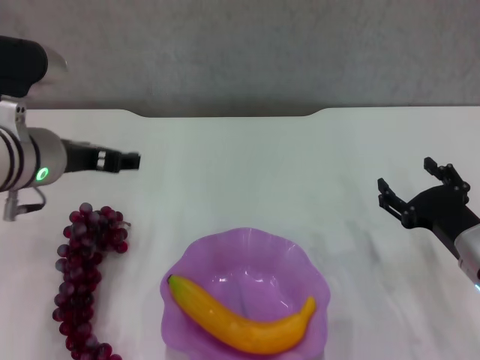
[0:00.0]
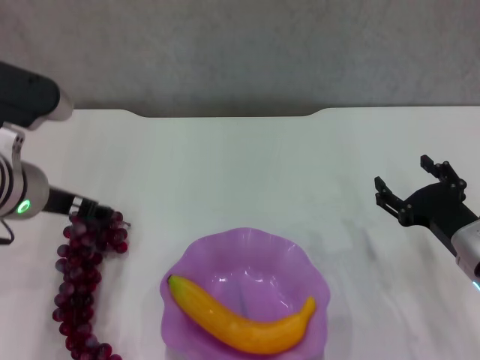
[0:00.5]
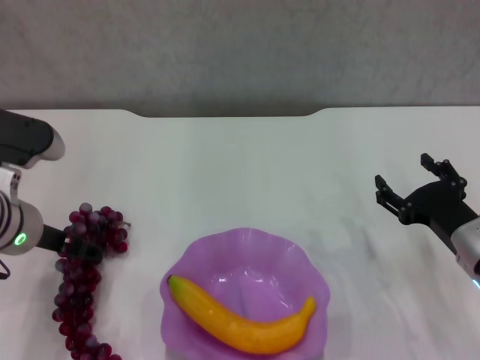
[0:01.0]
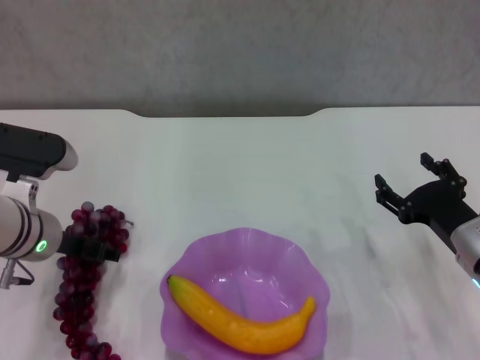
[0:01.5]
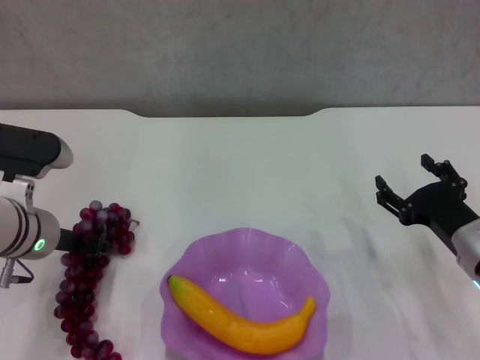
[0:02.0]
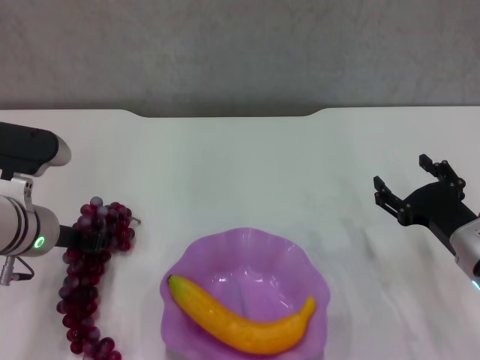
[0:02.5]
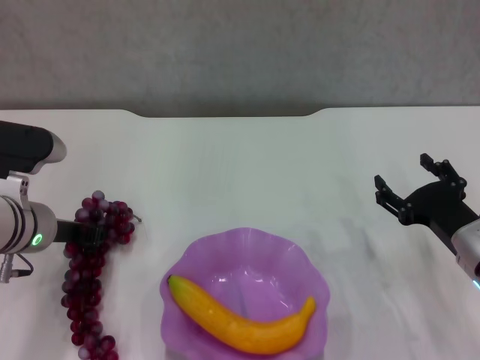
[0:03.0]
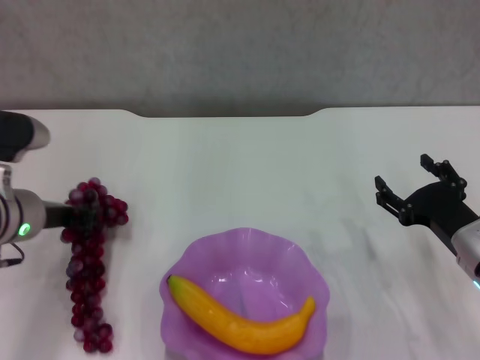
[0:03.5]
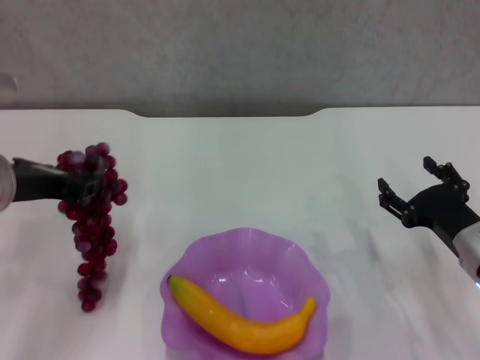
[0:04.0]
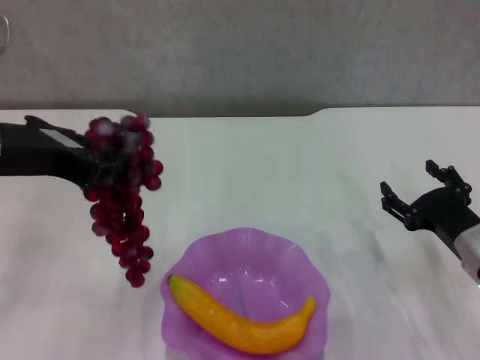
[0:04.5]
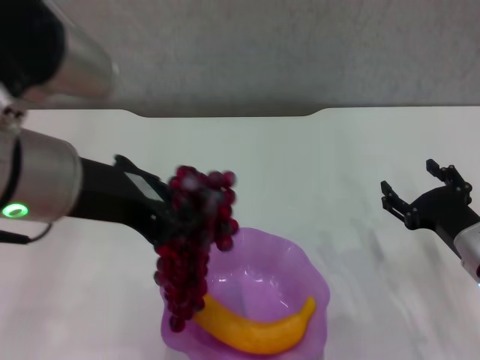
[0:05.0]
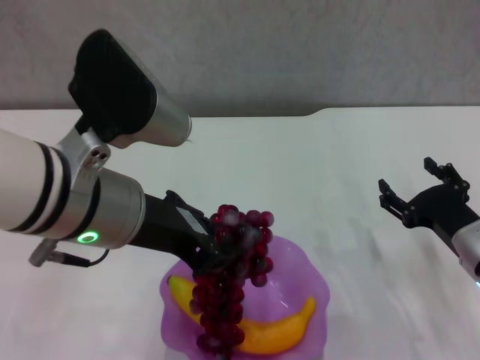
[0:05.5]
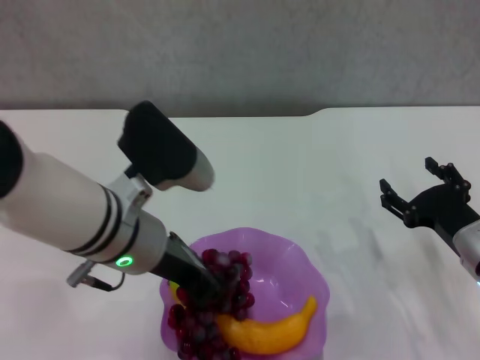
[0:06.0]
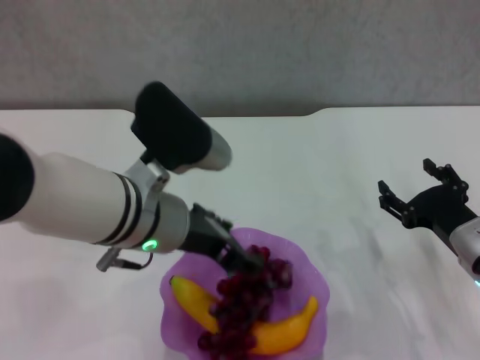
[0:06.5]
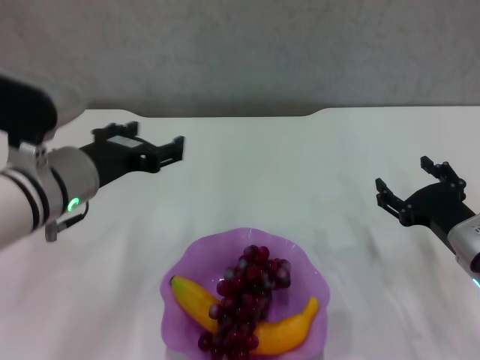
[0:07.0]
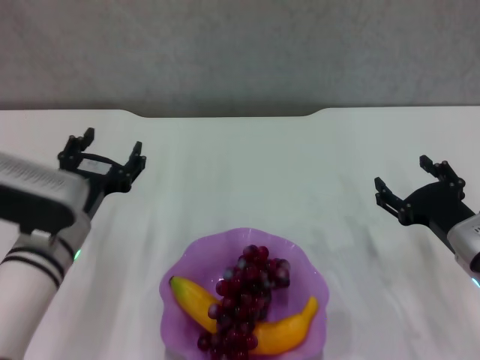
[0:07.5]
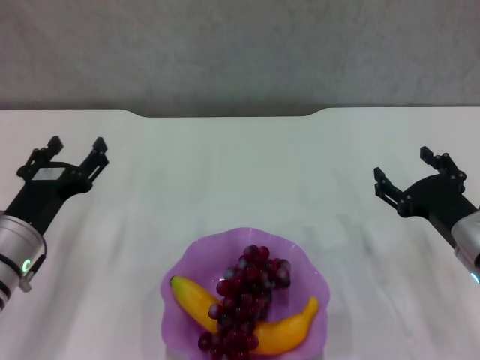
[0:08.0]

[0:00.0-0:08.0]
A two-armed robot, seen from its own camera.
Step, 0:00.0 to 0:02.0: Grasp the grape with left gripper.
Step, 0:02.5 to 0:06.5: Place the grape in the purple plate with left gripper.
0:00.0 to 0:02.0: The left gripper is displaced downward by some 10 cm, and closes.
0:02.0 to 0:04.0: The left gripper is displaced upward by about 10 cm, and closes up.
0:04.0 to 0:06.0: The left gripper moves to the right, about 10 cm.
0:06.0 to 0:08.0: The left gripper travels to the left and downward by about 15 cm, and opens up.

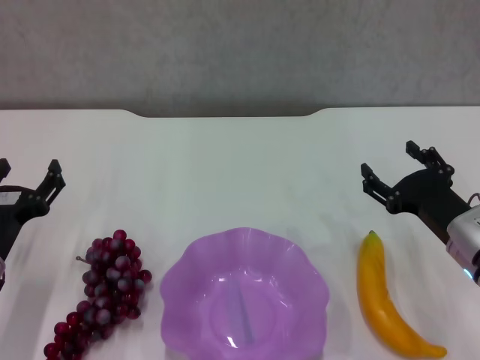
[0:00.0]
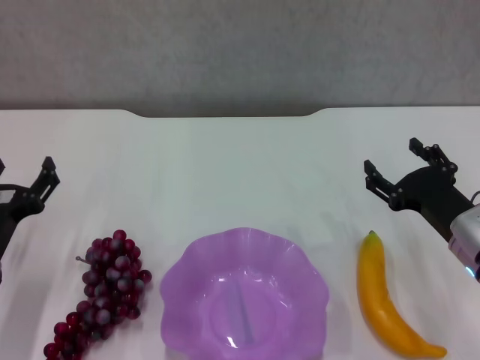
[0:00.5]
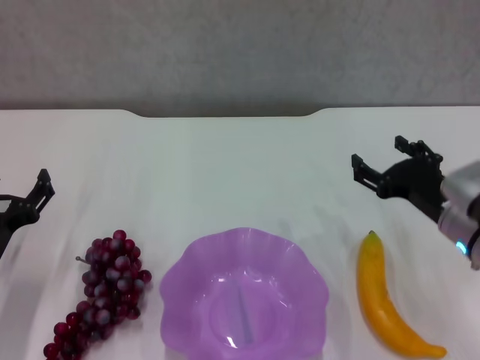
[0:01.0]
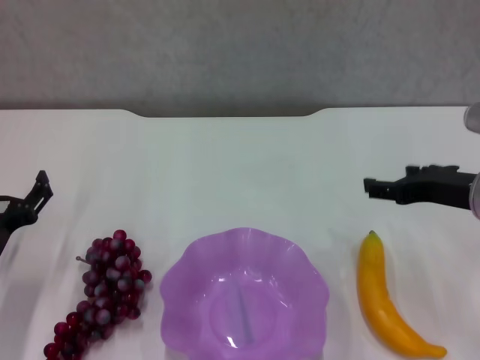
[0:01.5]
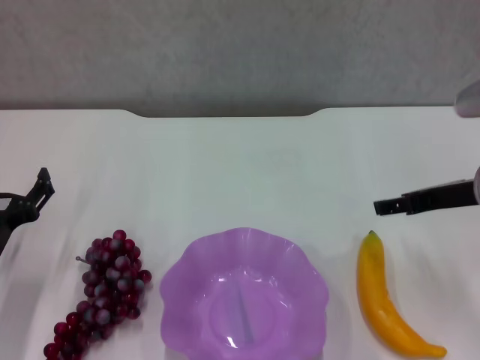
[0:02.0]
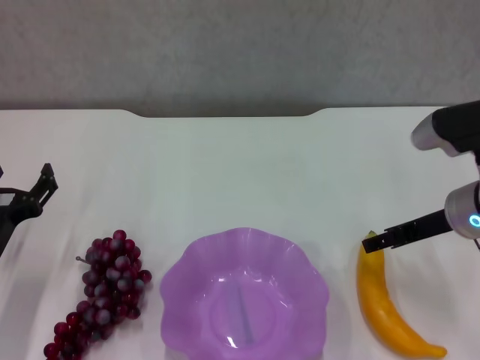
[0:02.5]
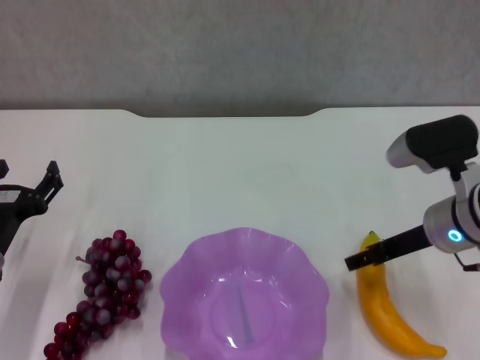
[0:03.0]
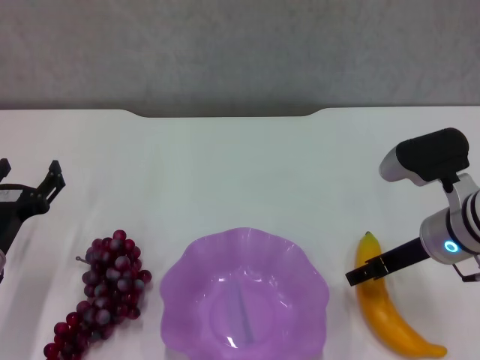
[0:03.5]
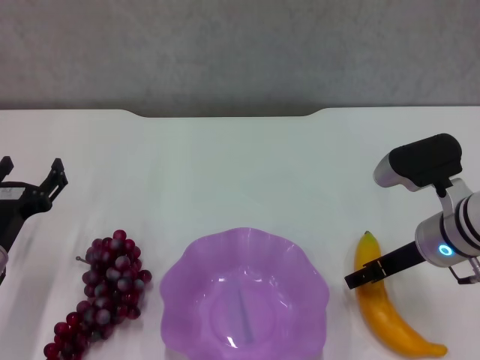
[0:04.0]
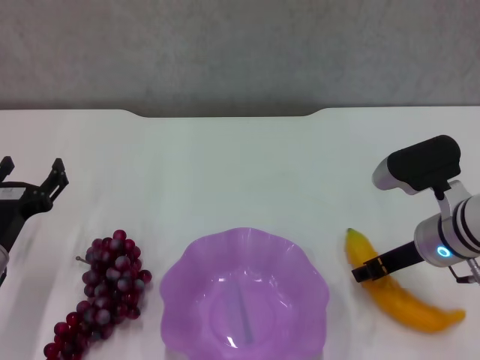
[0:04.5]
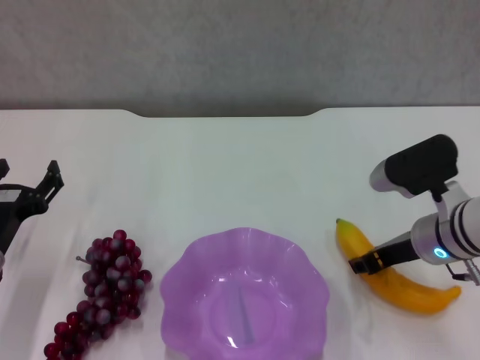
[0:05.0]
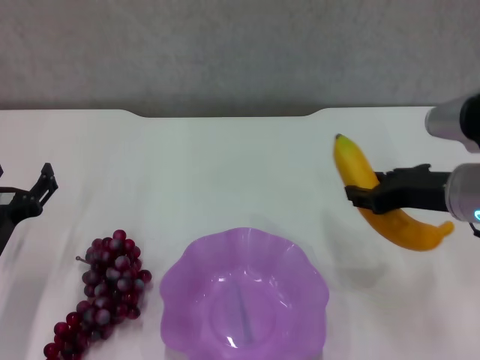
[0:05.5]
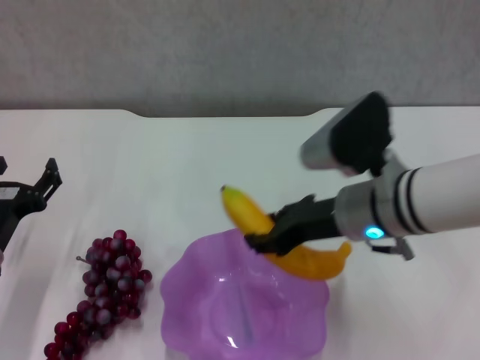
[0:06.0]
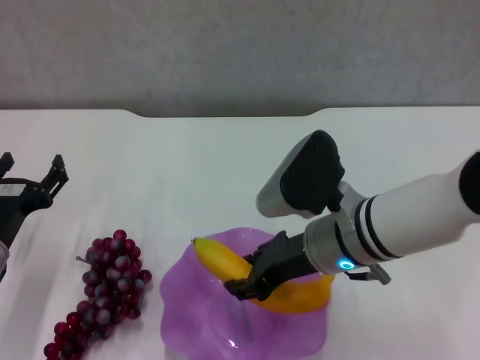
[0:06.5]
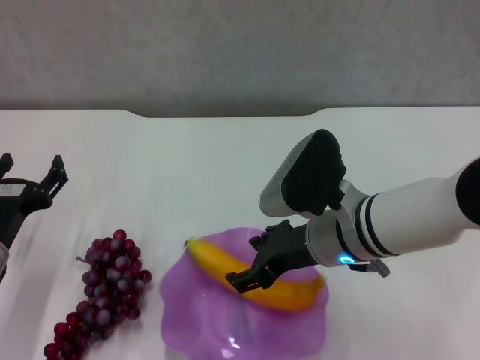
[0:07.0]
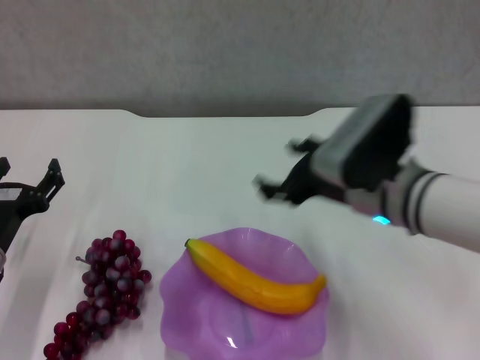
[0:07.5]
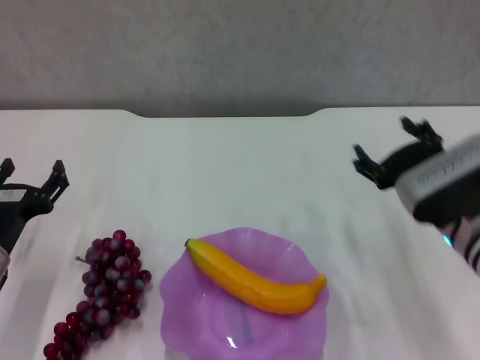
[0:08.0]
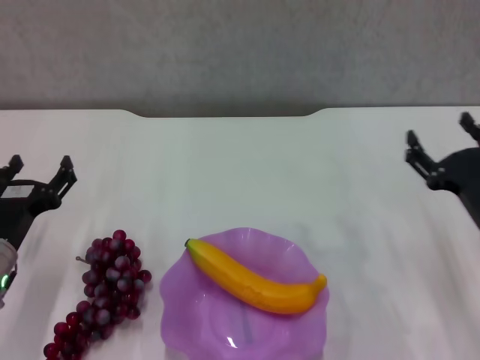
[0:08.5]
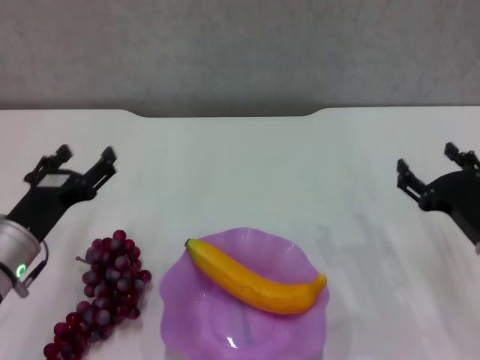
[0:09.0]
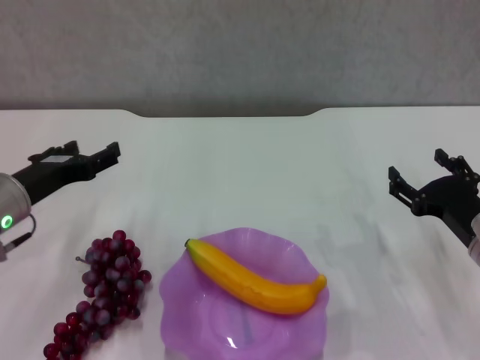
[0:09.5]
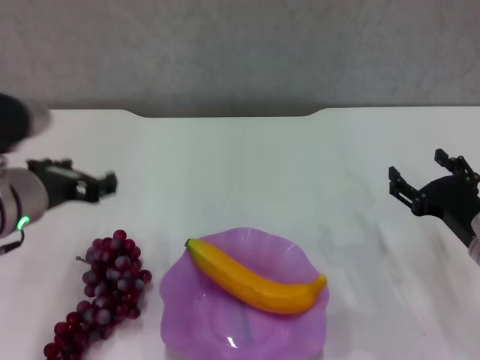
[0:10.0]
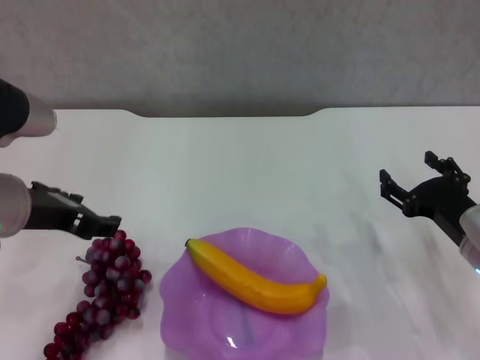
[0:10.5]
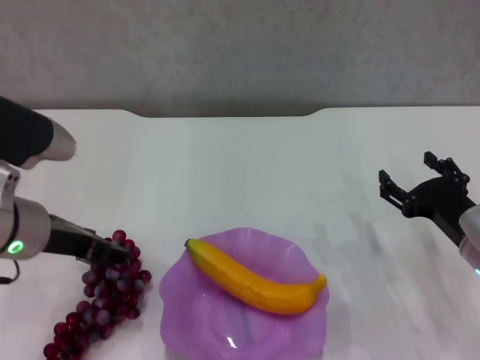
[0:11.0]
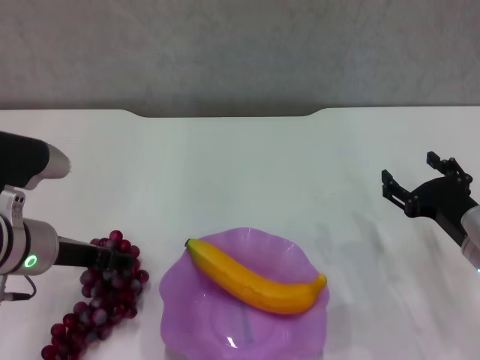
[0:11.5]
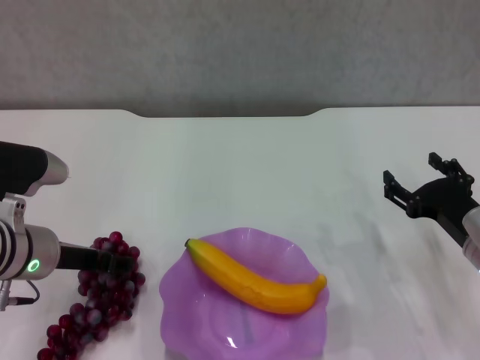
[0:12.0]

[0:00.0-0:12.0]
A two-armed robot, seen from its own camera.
Step, 0:00.0 to 0:04.5: Grasp the banana with right gripper.
Step, 0:05.0 to 0:07.0: Place the banana in the purple plate with right gripper.
0:00.0 to 0:02.0: The right gripper heads upward, covering some 10 cm.
0:02.0 to 0:04.0: The right gripper travels downward by approximately 5 cm.
0:04.0 to 0:06.0: The right gripper shifts roughly 10 cm to the left and upward, and closes.
0:06.0 to 0:08.0: The right gripper moves to the right, roughly 10 cm, and opens.
0:08.0 to 0:10.0: The left gripper travels upward and to the right by roughly 15 cm; the right gripper is displaced to the right and downward by some 10 cm.
0:10.0 to 0:12.0: The left gripper goes approximately 5 cm downward.

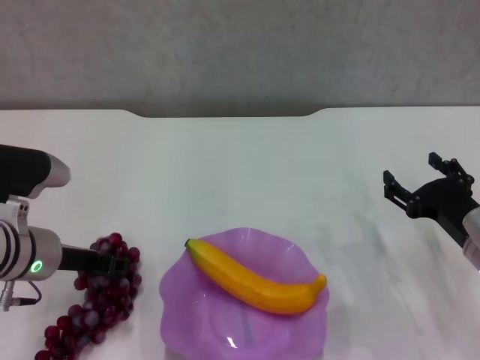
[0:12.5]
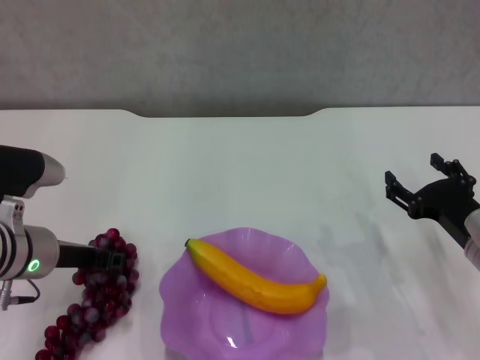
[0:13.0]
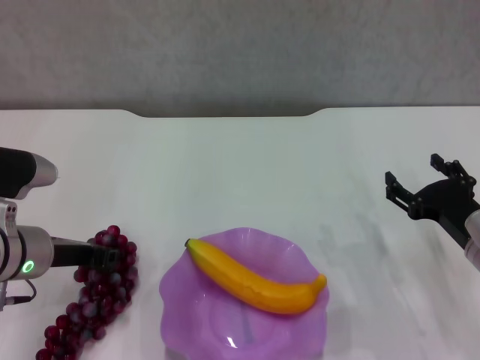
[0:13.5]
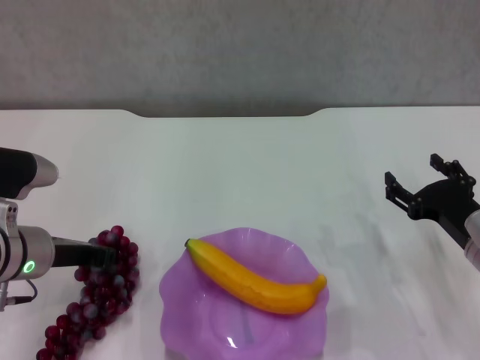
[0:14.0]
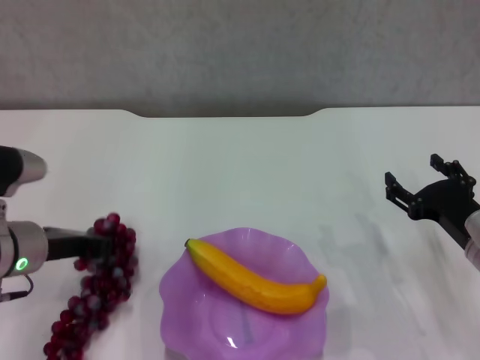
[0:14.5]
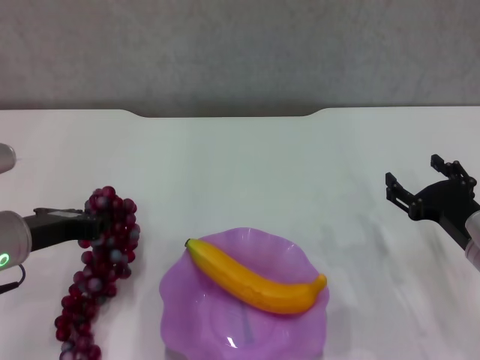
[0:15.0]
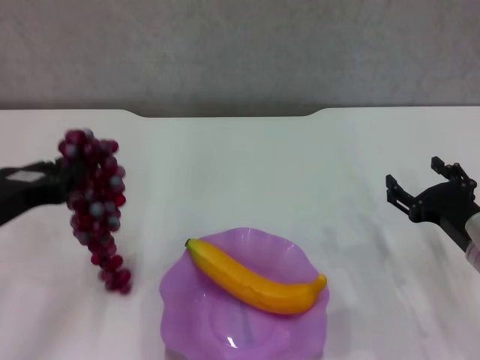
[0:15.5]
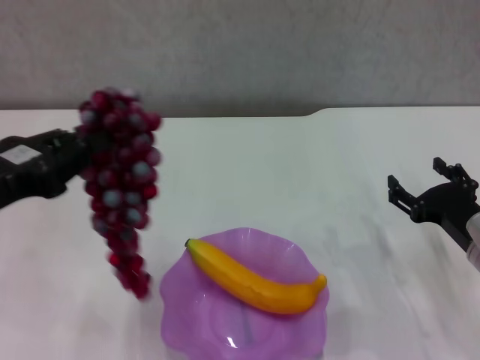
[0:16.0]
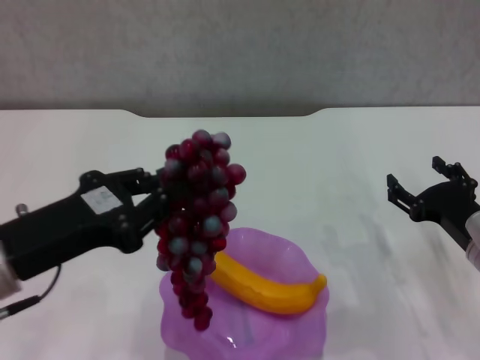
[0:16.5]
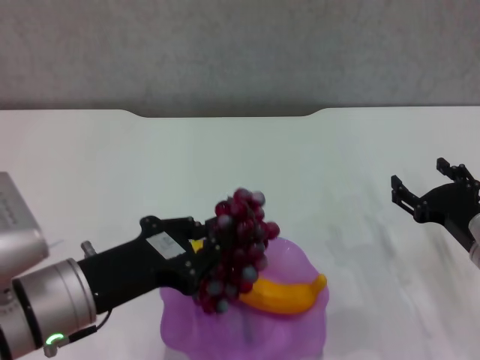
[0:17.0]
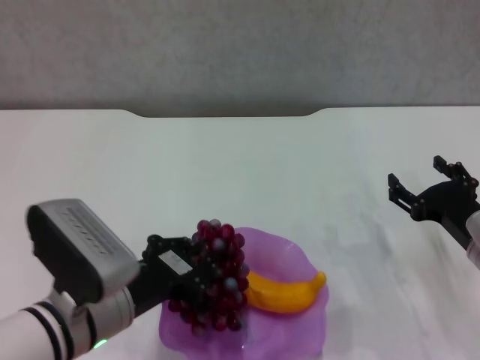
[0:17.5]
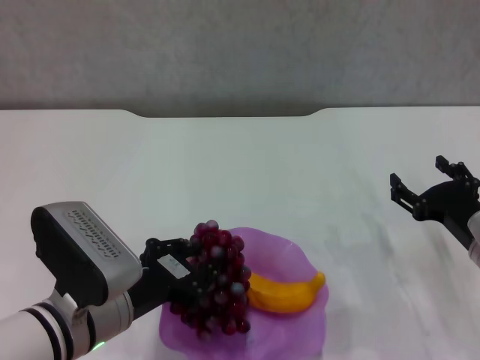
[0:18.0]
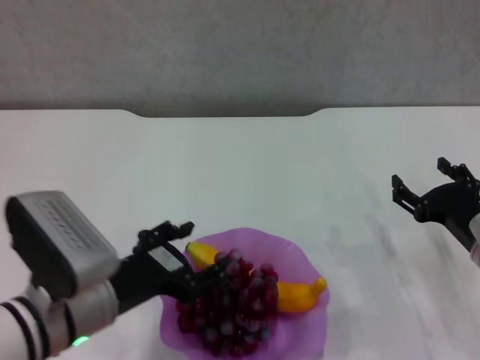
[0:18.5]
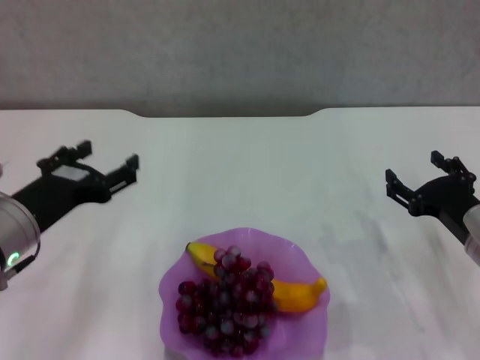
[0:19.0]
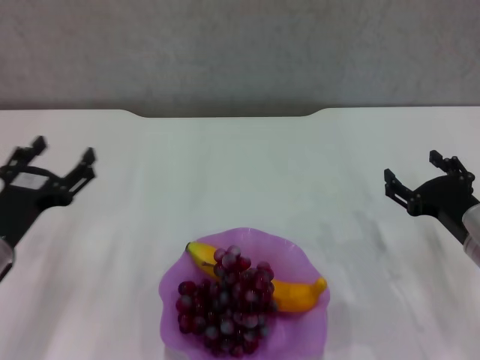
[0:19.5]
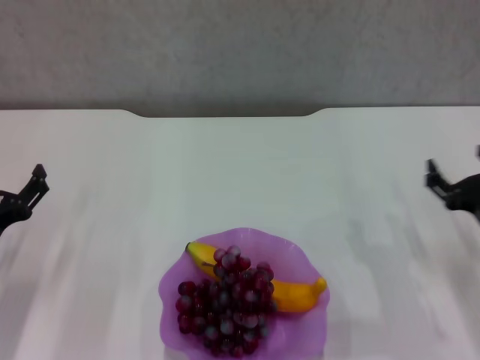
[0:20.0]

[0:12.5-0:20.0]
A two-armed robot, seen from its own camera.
Step, 0:13.0 to 0:18.5: Place the grape in the purple plate with left gripper.
0:12.5 to 0:14.5: The left gripper closes.
0:14.5 to 0:16.5: The left gripper is displaced backward and upward by some 10 cm.
0:16.5 to 0:18.0: The left gripper is displaced downward and to the right by approximately 10 cm.
0:18.0 to 0:20.0: The left gripper heads to the left, covering some 15 cm, and opens up.
